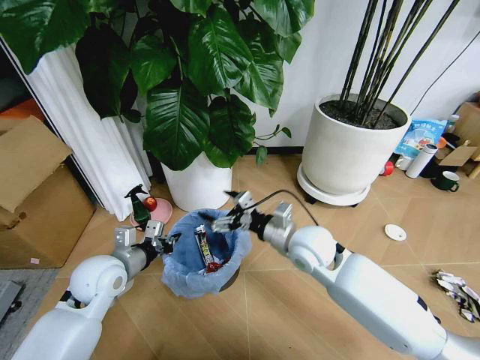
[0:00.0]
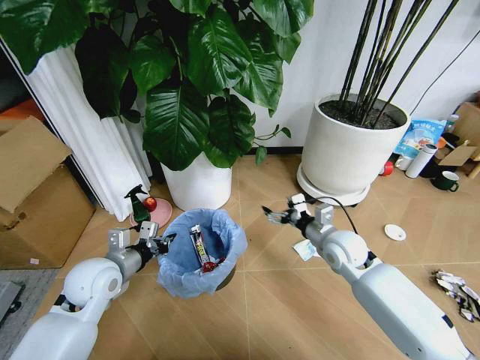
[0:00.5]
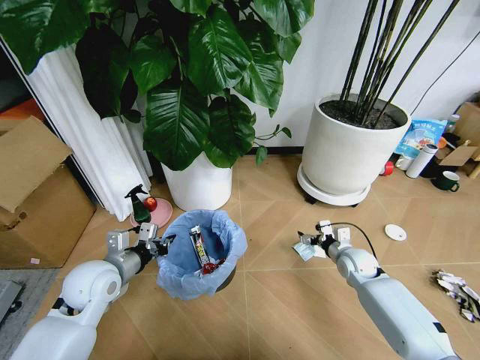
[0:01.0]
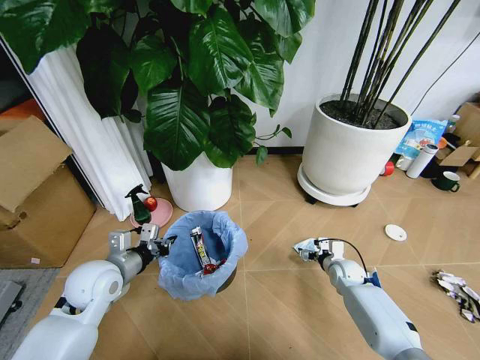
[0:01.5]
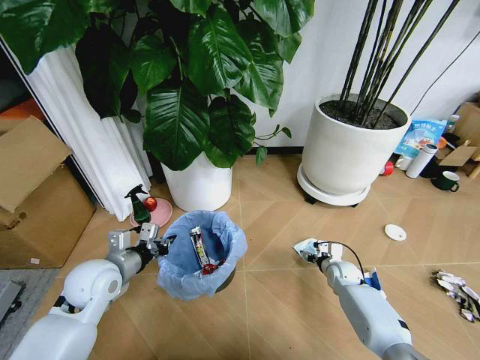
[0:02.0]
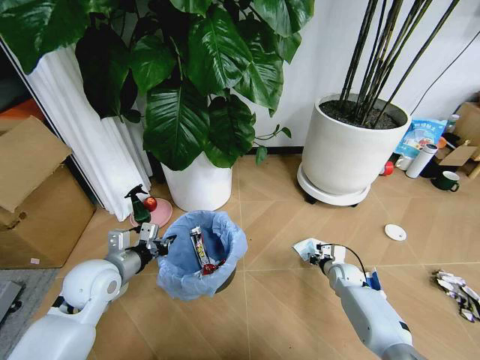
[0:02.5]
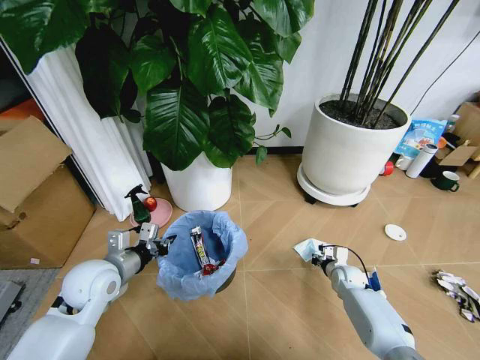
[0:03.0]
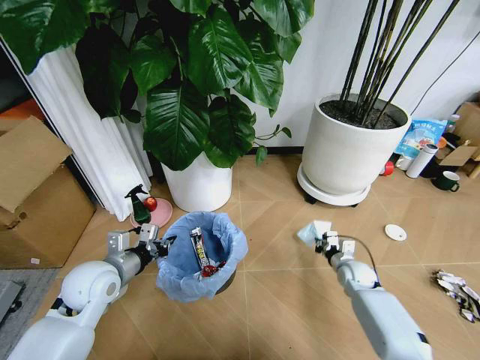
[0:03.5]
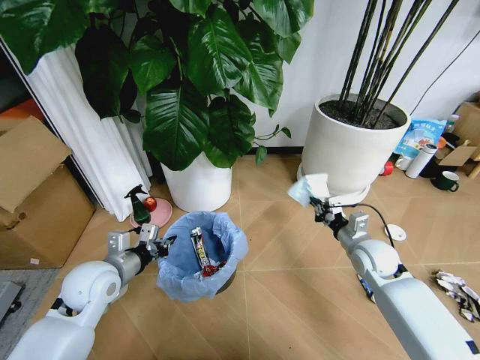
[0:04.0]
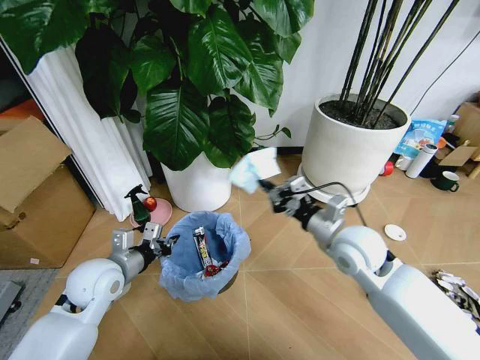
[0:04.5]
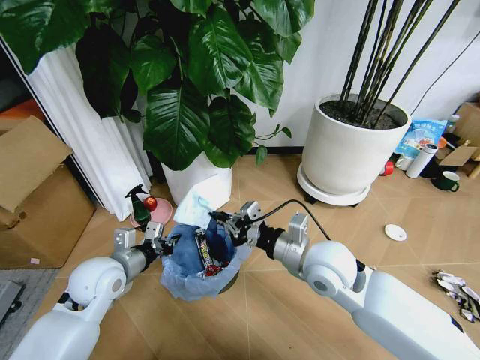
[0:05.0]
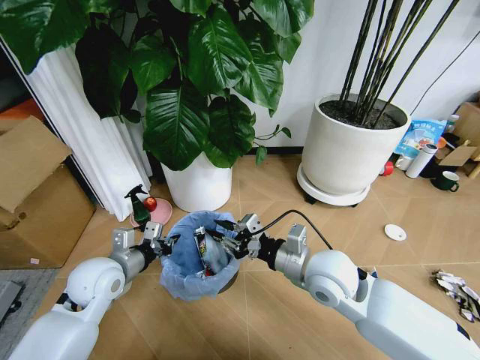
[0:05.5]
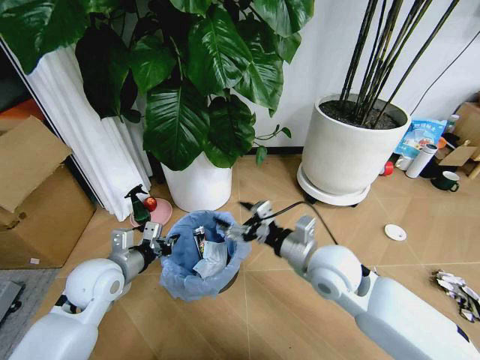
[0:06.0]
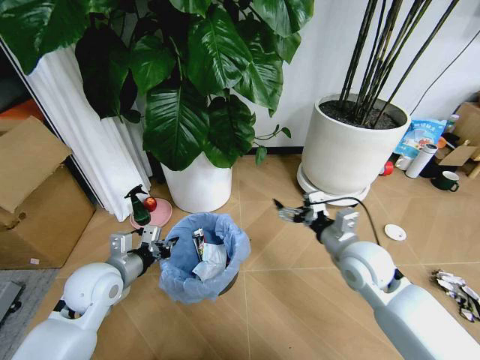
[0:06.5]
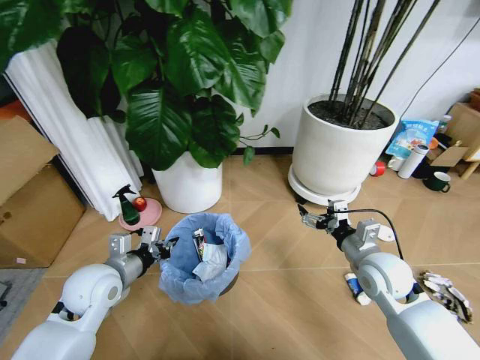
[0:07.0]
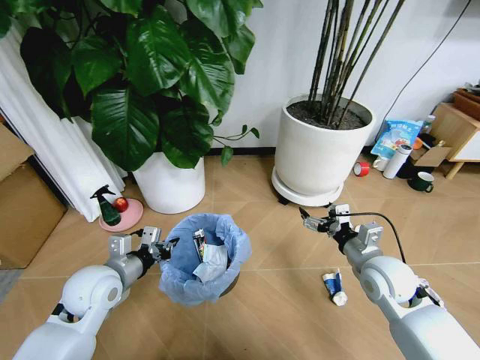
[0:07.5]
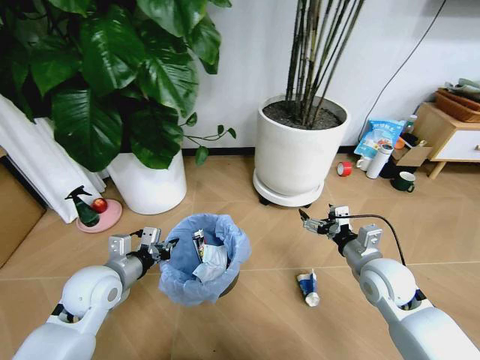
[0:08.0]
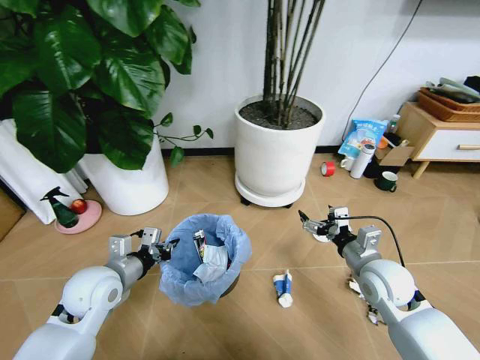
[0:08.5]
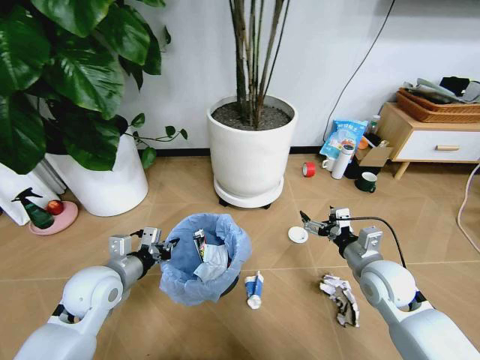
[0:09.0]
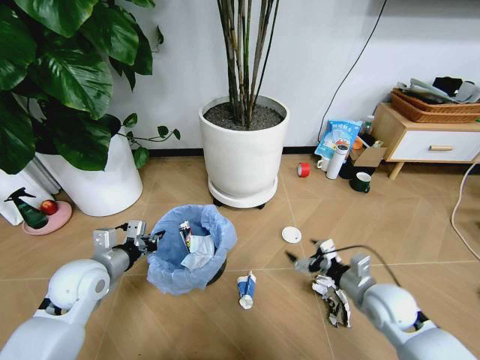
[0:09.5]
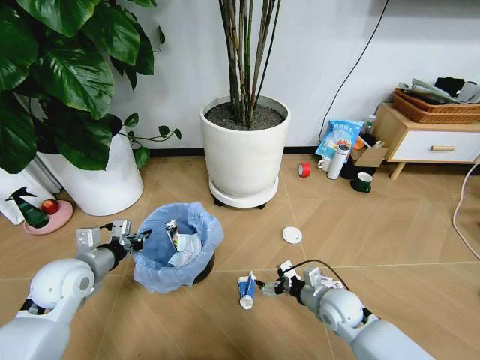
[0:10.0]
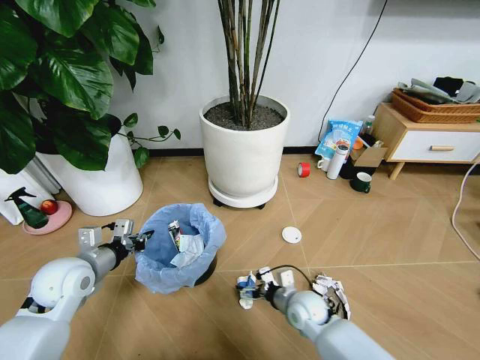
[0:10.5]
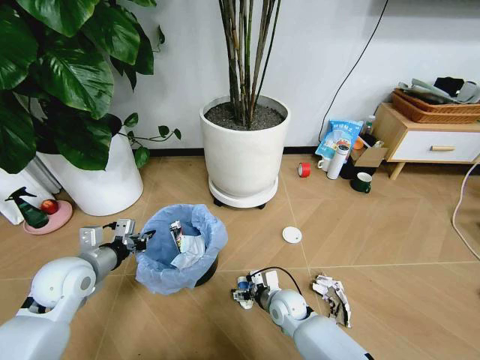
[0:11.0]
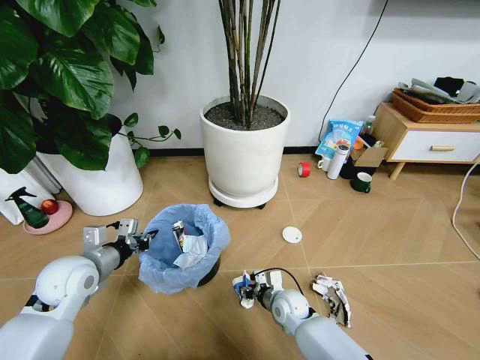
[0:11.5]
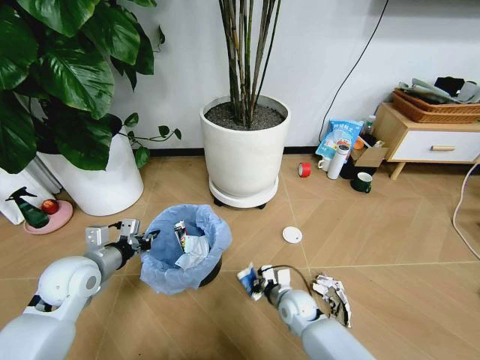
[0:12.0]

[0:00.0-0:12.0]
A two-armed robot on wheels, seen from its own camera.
Task of the whole recording: Pick up the trash bin and place the garbage on the floor into it.
0:00.0 to 0:02.0: The right gripper goes about 30 cm downward and to the right.
0:02.0 to 0:04.0: The right gripper is displaced upward by about 20 cm, and closes its fingers.
0:04.0 to 0:06.0: The right gripper heads to the left, upward and backward, covering roughly 20 cm, and opens its fingers.
0:06.0 to 0:08.0: The right gripper moves to the right and downward, approximately 15 cm.
0:08.0 to 0:10.0: The right gripper heads downward and to the left, covering roughly 15 cm. The left gripper shifts approximately 5 cm to the left.
0:10.0 to 0:12.0: The right gripper heads to the left and downward, covering roughly 10 cm, and closes.

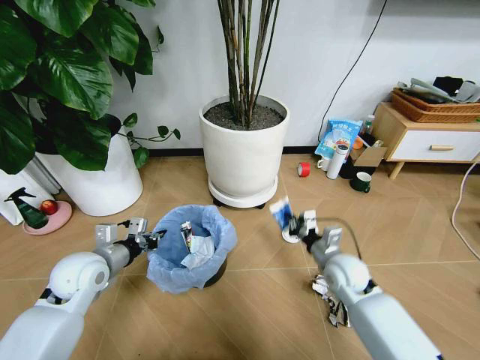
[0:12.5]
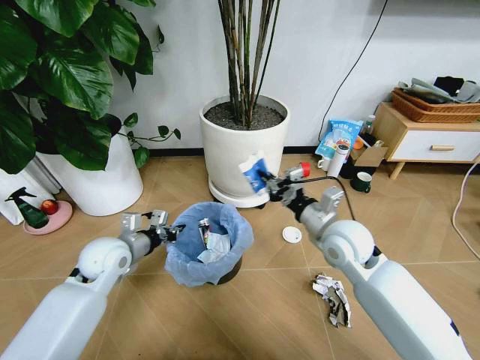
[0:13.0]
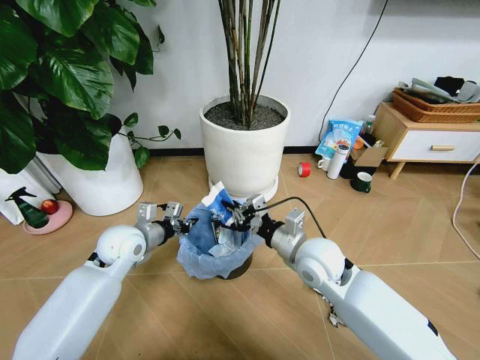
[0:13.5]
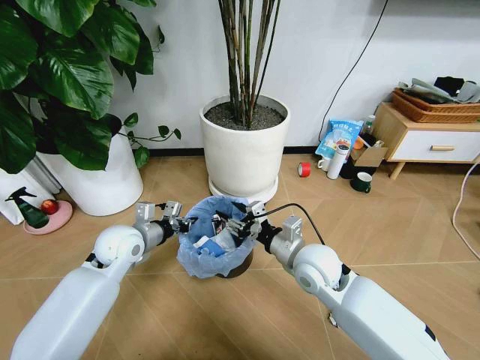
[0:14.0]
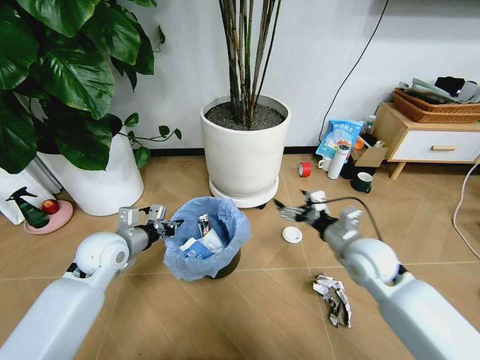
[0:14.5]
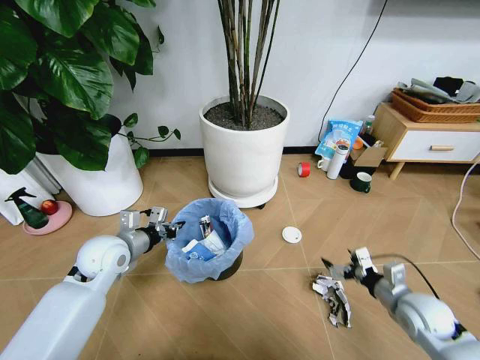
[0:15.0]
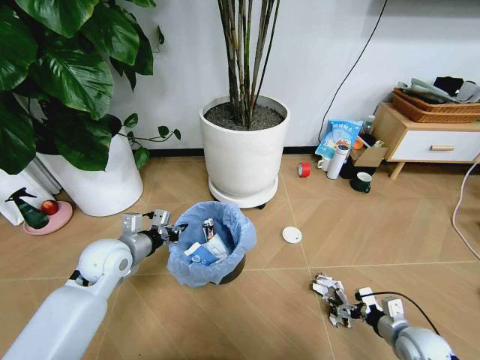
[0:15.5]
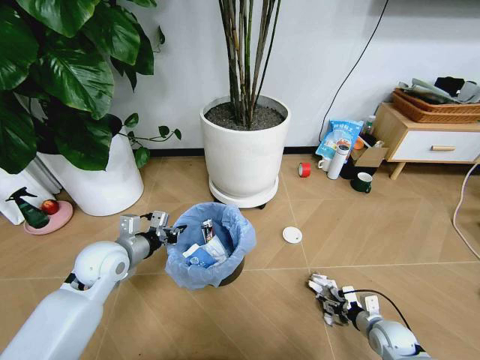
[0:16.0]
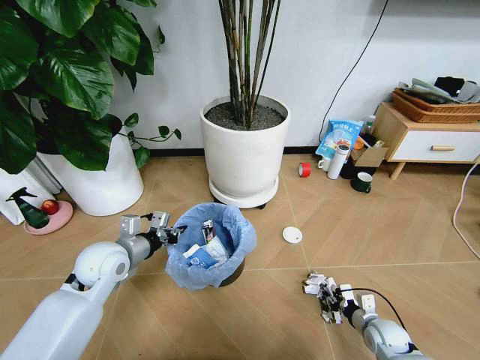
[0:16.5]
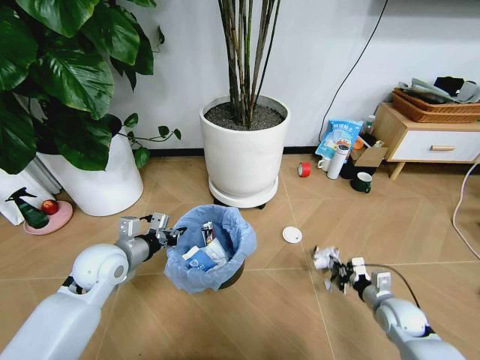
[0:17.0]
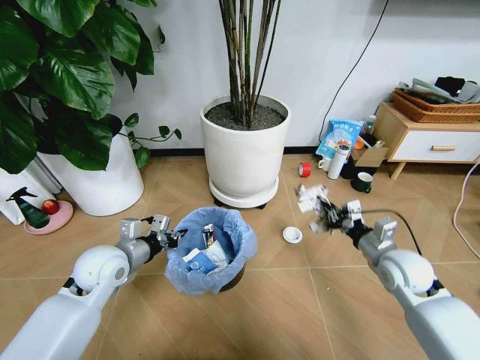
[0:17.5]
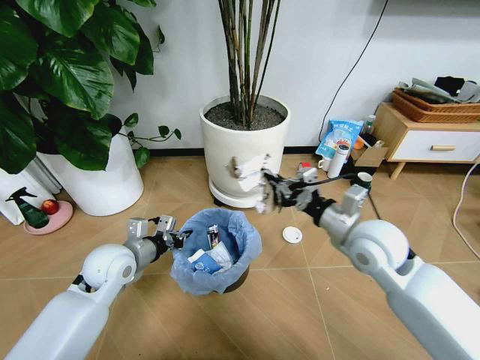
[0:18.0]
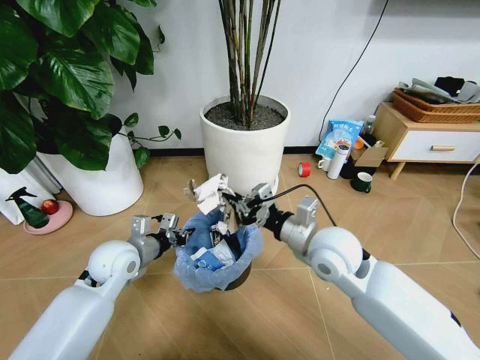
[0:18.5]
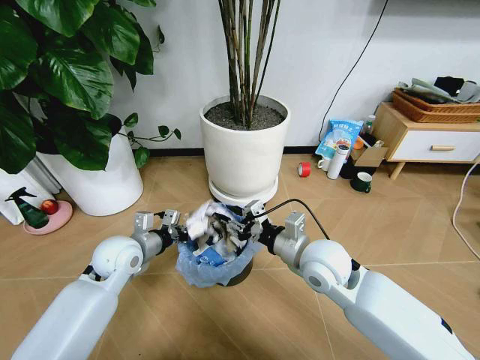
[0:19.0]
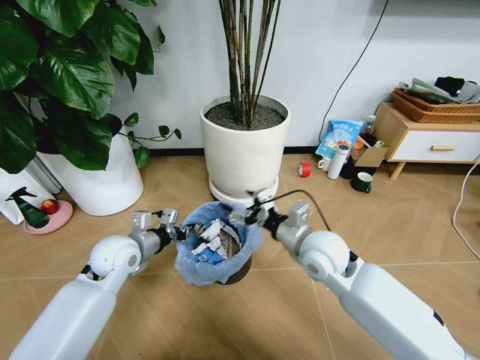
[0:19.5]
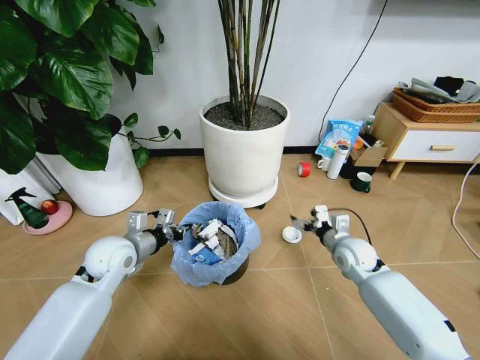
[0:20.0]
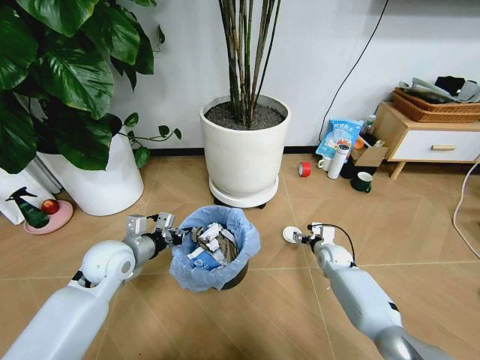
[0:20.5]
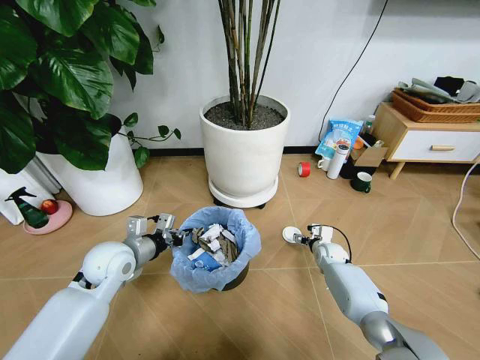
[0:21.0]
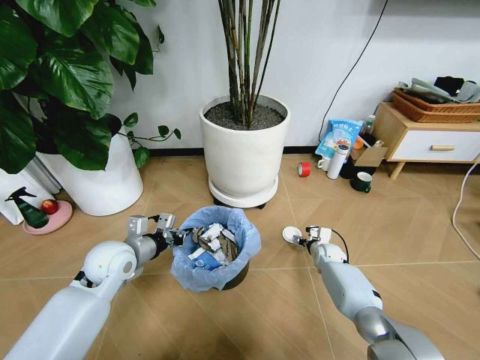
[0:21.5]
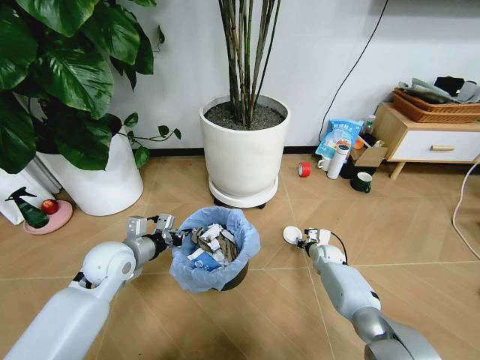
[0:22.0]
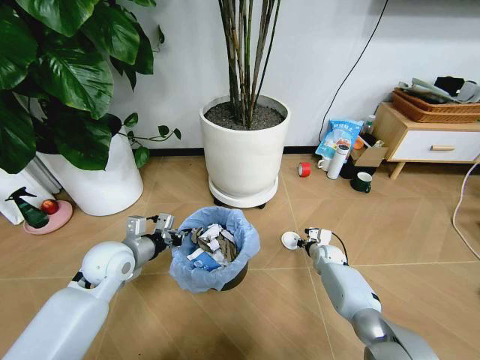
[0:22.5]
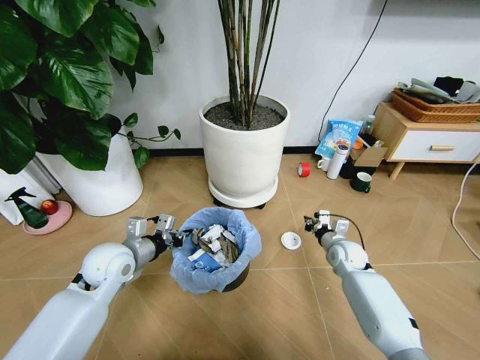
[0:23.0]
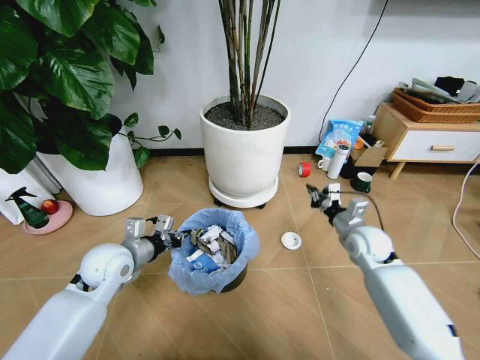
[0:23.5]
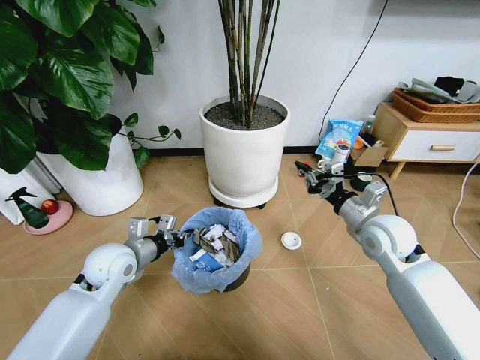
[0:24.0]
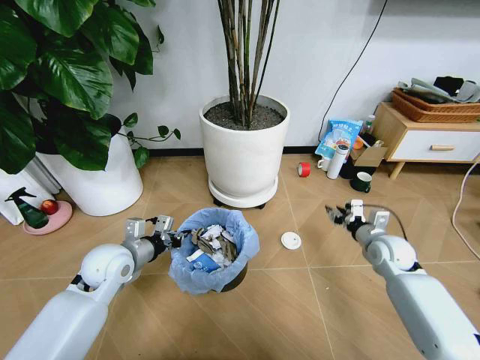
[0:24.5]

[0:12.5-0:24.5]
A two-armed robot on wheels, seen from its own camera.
Task of the whole recording: Pick up the trash bin and place the garbage on the floor into it.
0:12.5 to 0:14.5: The right gripper shifts approximately 10 cm upward, and opens.
0:14.5 to 0:16.5: The right gripper moves downward and to the right, approximately 25 cm, and closes its fingers.
0:16.5 to 0:18.5: The right gripper moves upward and to the left, roughly 40 cm.
0:18.5 to 0:20.5: The right gripper is displaced downward, forward and to the right by roughly 35 cm, and opens.
0:20.5 to 0:22.5: The right gripper closes up.
0:22.5 to 0:24.5: The right gripper heads upward, to the right and backward, covering about 20 cm, and opens.

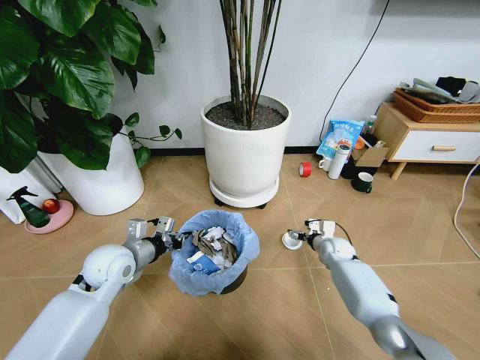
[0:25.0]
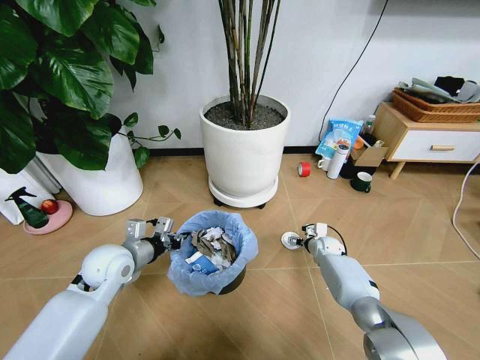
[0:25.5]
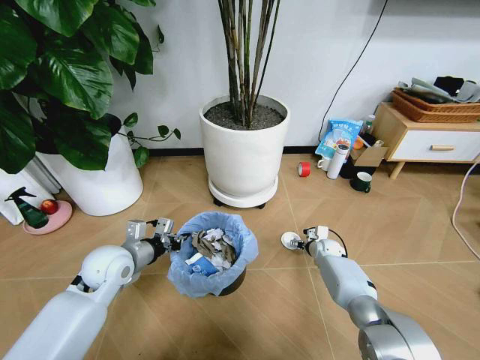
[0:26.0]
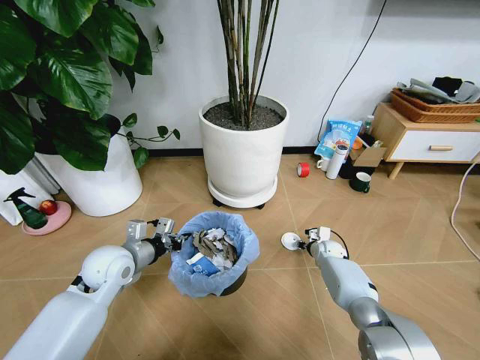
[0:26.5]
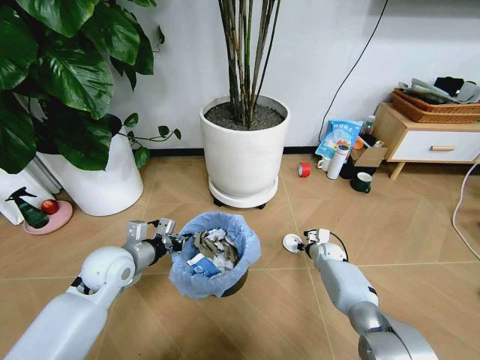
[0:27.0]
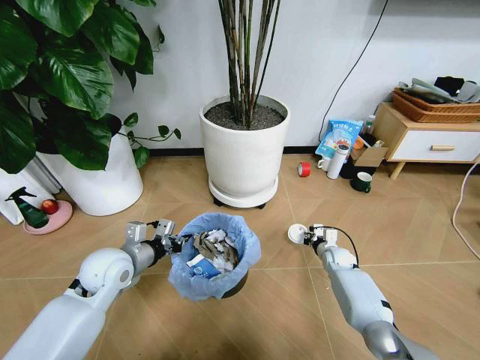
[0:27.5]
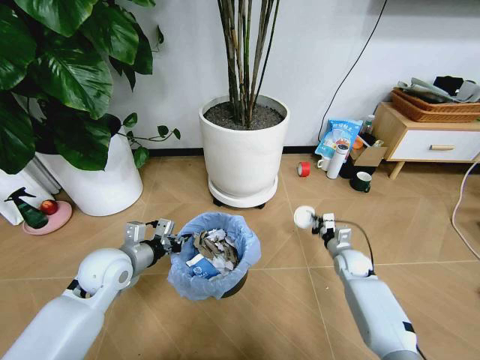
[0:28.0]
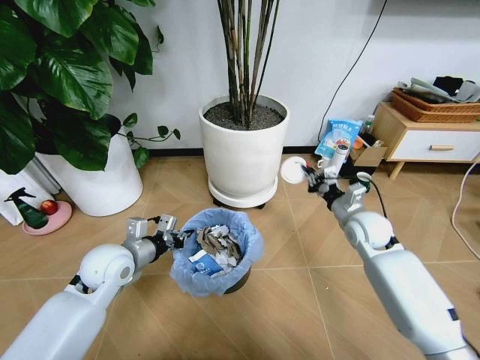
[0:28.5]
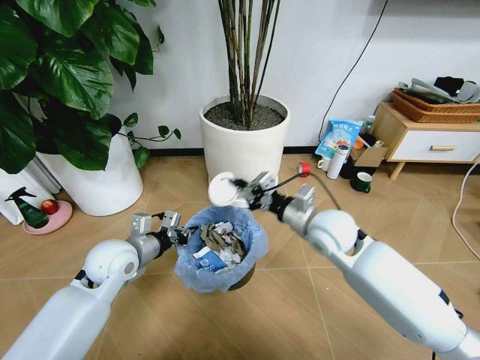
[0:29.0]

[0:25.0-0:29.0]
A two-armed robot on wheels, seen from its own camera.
Task of the whole recording: Pick up the trash bin and place the garbage on the floor into it.
0:25.0 to 0:27.0: The right gripper closes its fingers.
0:27.0 to 0:29.0: The right gripper heads upward, covering some 30 cm.
